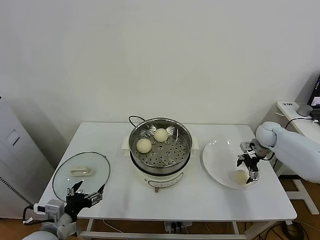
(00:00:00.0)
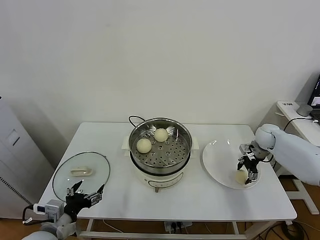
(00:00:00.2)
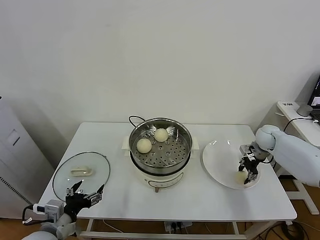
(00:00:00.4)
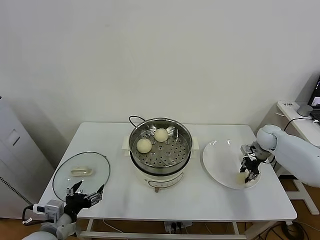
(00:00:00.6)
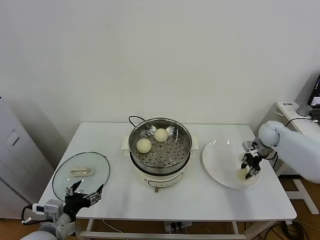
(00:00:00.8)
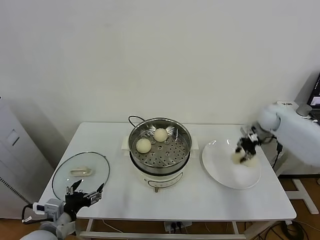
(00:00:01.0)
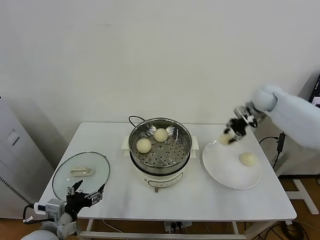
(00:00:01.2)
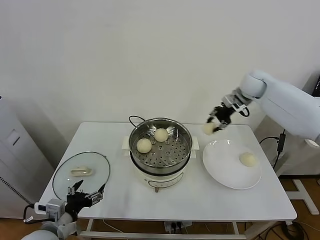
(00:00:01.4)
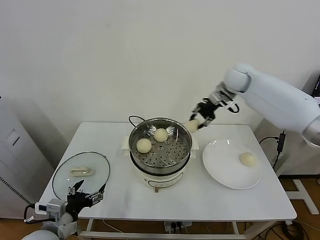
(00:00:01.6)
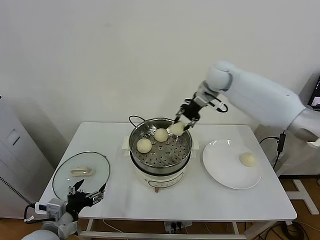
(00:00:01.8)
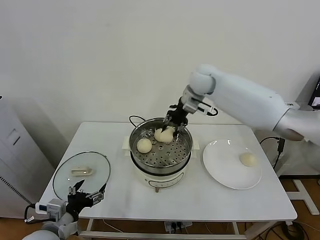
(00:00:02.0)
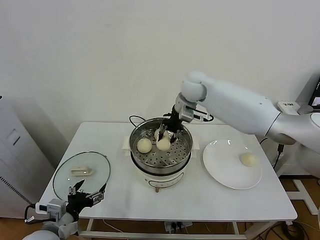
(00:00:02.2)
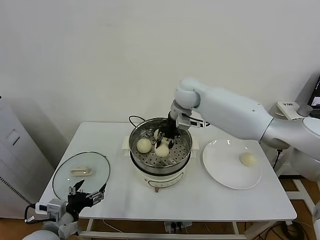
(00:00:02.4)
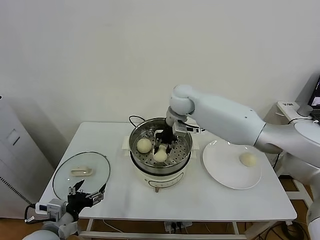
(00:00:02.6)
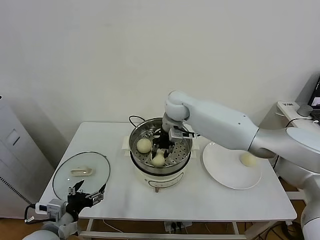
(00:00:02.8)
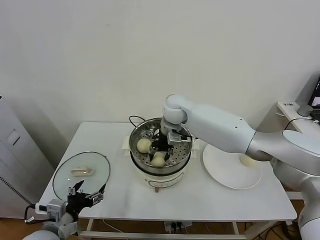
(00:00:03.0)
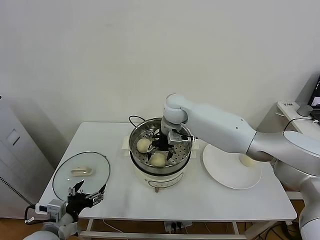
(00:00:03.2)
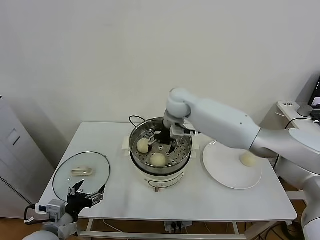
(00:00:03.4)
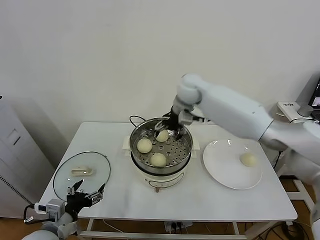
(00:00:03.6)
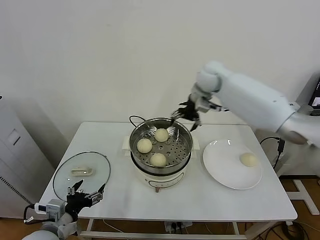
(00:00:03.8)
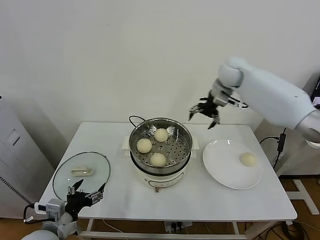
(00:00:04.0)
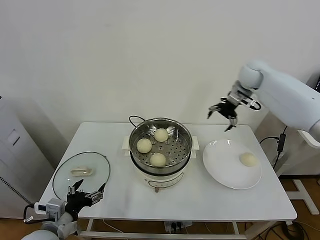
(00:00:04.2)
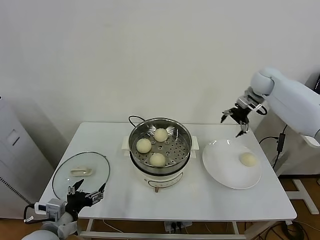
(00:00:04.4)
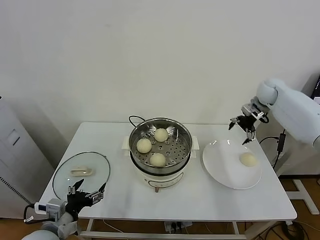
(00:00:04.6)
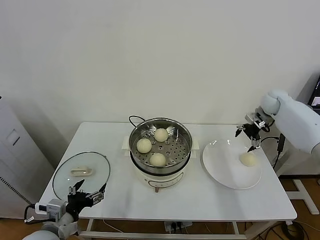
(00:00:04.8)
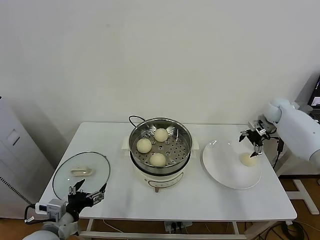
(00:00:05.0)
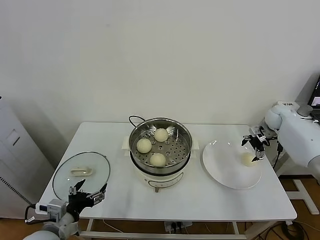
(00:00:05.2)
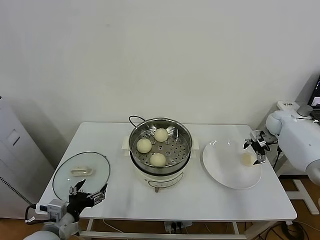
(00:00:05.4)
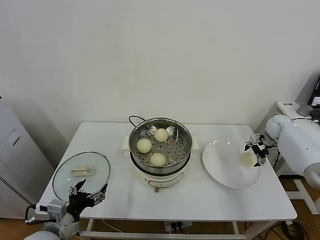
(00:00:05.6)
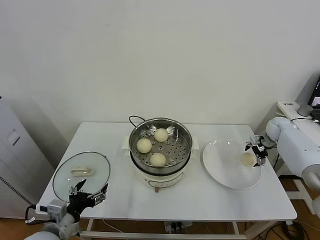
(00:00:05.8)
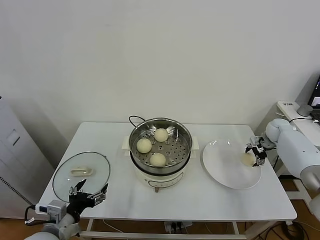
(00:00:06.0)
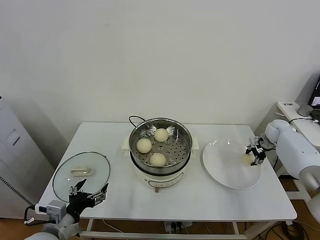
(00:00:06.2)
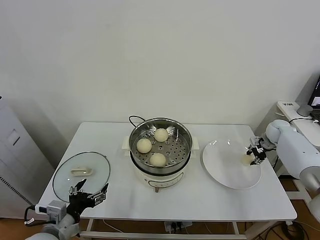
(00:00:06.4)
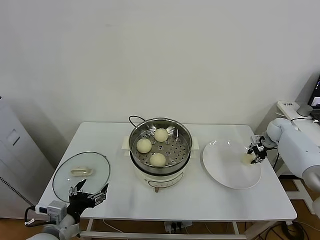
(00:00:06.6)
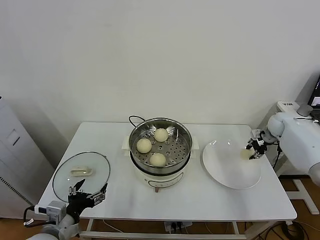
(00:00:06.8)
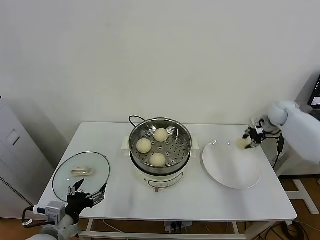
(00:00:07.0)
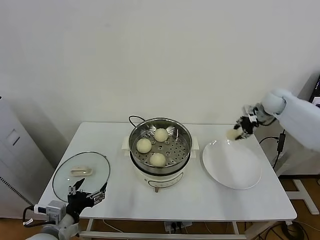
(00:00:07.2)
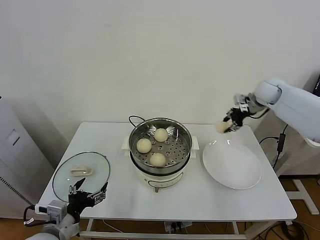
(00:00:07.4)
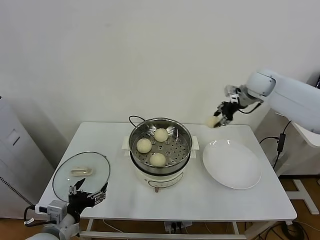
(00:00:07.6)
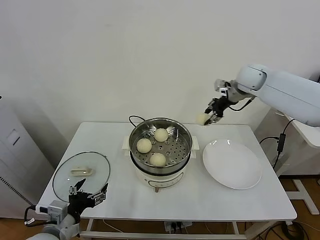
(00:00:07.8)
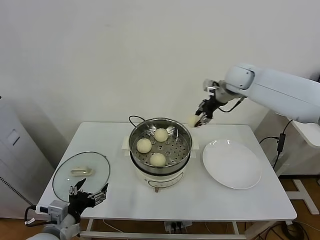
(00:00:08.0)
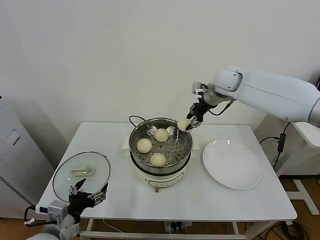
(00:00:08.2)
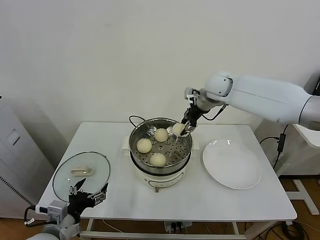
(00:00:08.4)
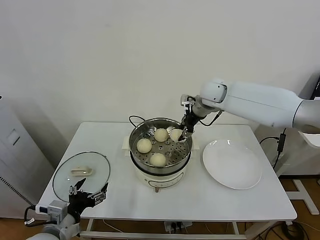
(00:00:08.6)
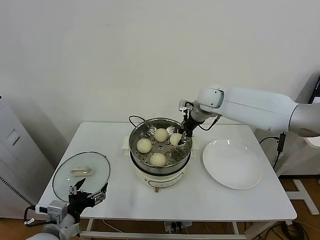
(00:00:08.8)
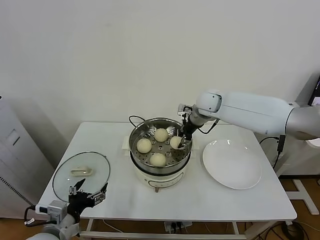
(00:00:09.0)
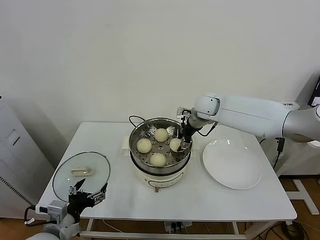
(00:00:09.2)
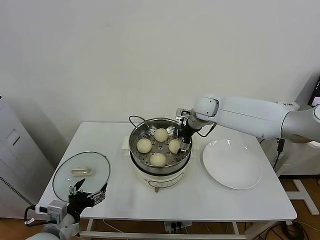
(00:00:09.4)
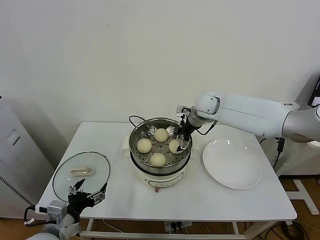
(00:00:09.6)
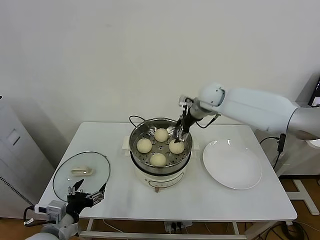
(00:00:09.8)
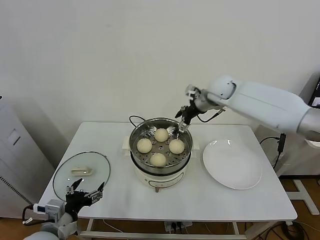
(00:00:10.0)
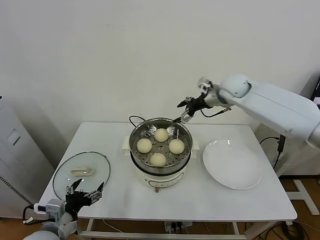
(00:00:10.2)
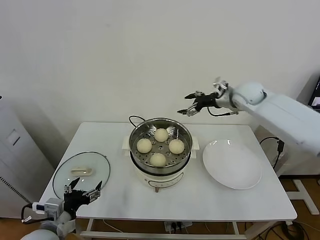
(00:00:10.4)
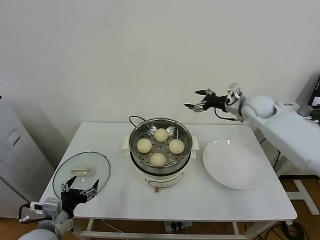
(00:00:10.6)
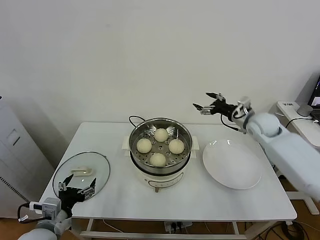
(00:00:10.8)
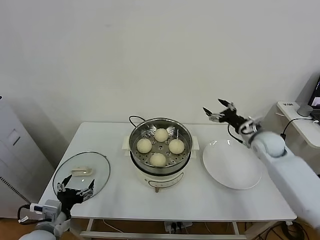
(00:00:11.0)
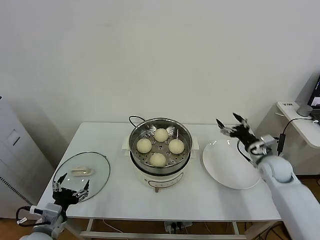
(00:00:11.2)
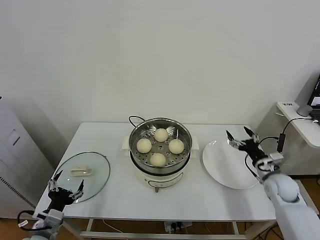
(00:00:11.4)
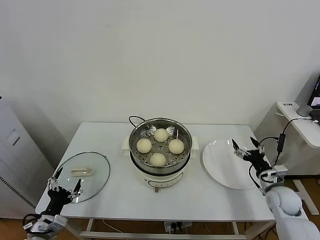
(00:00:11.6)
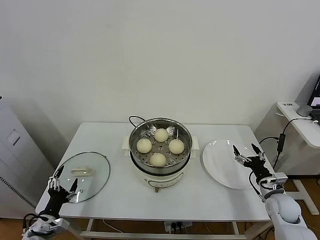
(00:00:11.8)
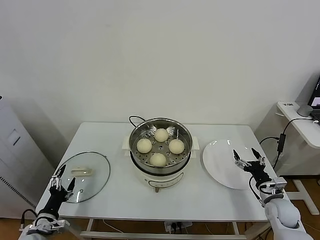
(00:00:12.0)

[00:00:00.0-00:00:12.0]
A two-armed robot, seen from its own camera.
Task of the whole recording: take steamed baozi put them in steamer.
Step, 00:00:00.8 to 00:00:03.4: Place the baozi on the steamer with right gripper.
Step, 00:00:03.6 to 00:00:06.4: Grasp the baozi in the plate with right gripper.
Step, 00:00:06.6 to 00:00:09.8: Place the baozi on the steamer with right gripper.
00:00:00.0 to 00:00:01.6: The right gripper travels upward and to the left by some 30 cm, and closes.
00:00:01.6 to 00:00:03.0: The right gripper is displaced to the left and downward by roughly 20 cm.
00:00:03.0 to 00:00:04.4: The right gripper is displaced to the right by some 35 cm, and opens.
00:00:04.4 to 00:00:06.0: The right gripper goes some 25 cm downward and to the right.
00:00:06.0 to 00:00:07.6: The right gripper travels upward and to the left by some 30 cm, and closes its fingers.
00:00:07.6 to 00:00:09.0: The right gripper goes about 20 cm to the left and downward.
00:00:09.0 to 00:00:10.4: The right gripper goes roughly 15 cm to the right, and opens its fingers.
00:00:10.4 to 00:00:12.0: The right gripper is displaced downward, backward and to the right by some 40 cm. The left gripper heads downward and to the left, covering roughly 15 cm.

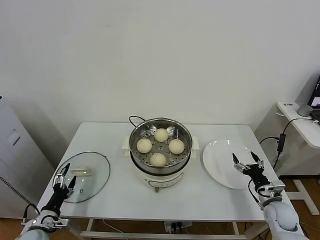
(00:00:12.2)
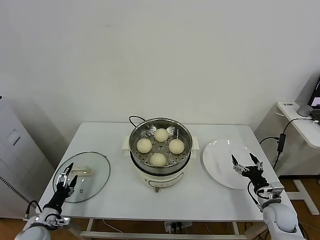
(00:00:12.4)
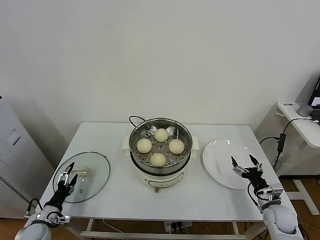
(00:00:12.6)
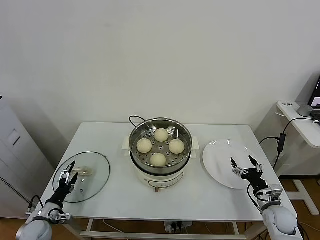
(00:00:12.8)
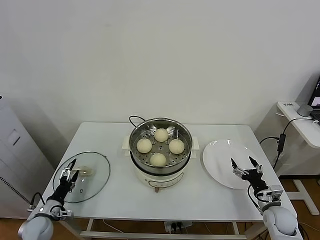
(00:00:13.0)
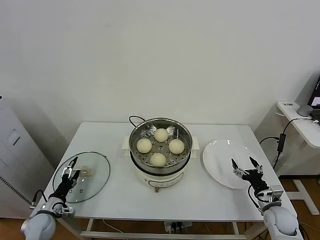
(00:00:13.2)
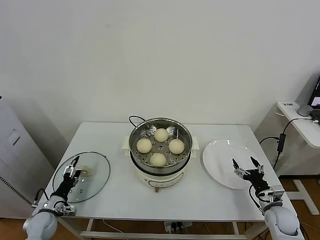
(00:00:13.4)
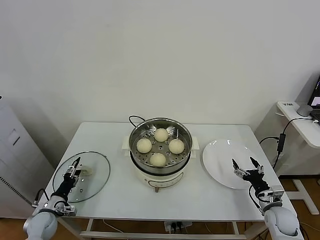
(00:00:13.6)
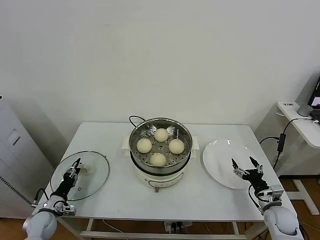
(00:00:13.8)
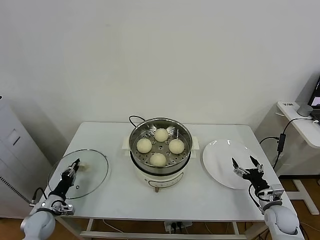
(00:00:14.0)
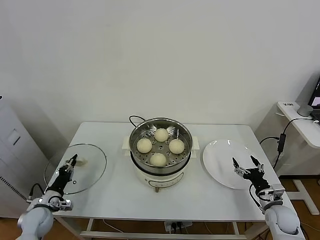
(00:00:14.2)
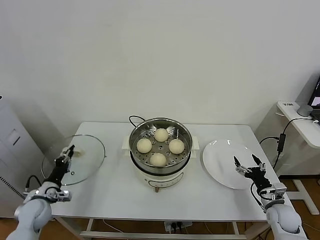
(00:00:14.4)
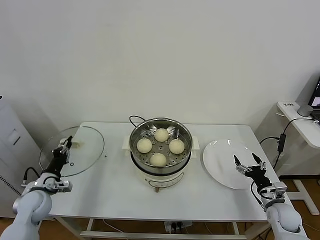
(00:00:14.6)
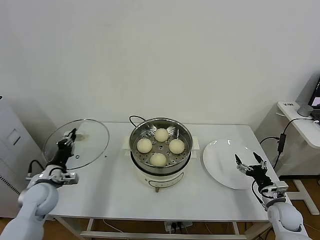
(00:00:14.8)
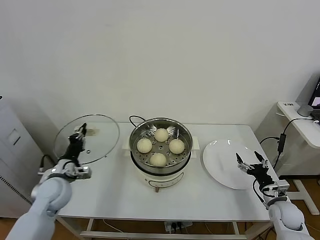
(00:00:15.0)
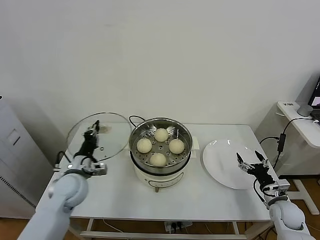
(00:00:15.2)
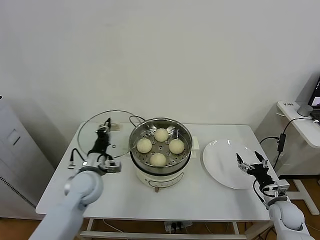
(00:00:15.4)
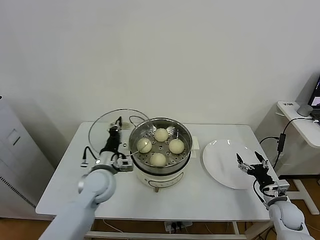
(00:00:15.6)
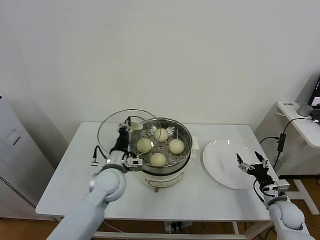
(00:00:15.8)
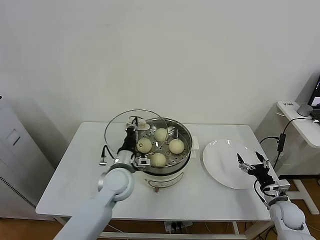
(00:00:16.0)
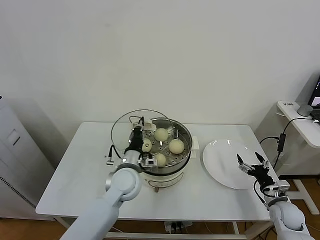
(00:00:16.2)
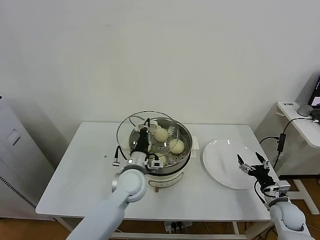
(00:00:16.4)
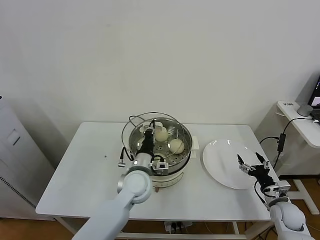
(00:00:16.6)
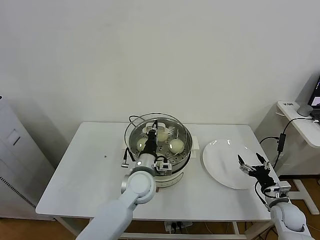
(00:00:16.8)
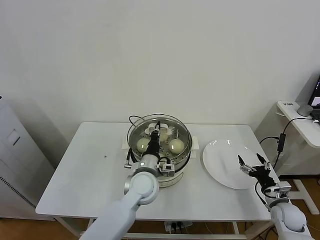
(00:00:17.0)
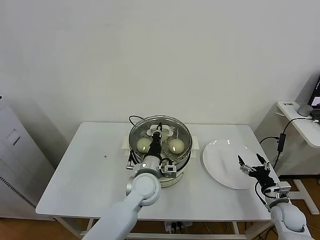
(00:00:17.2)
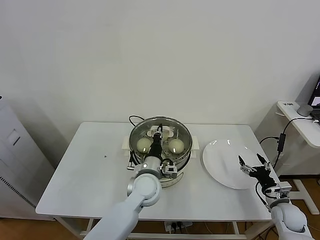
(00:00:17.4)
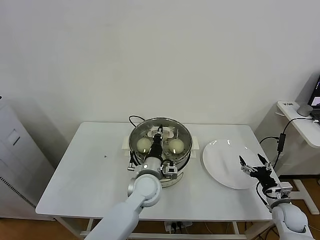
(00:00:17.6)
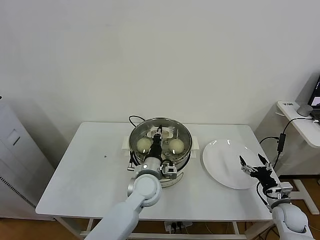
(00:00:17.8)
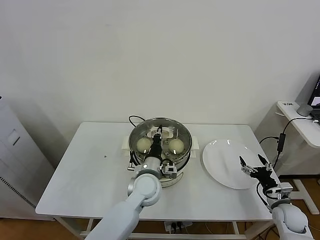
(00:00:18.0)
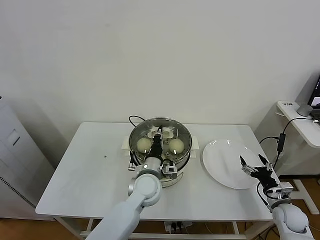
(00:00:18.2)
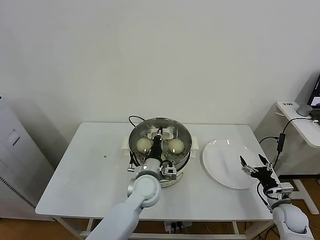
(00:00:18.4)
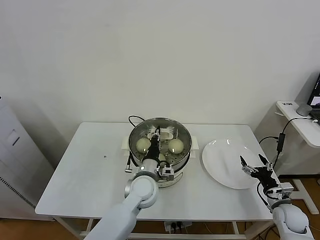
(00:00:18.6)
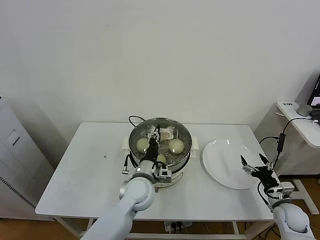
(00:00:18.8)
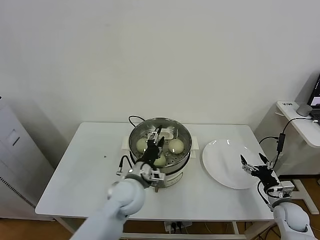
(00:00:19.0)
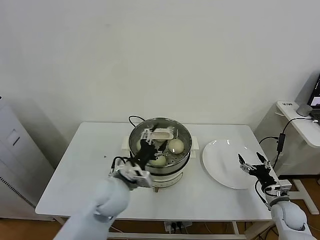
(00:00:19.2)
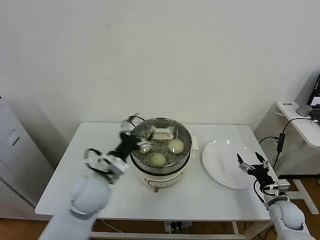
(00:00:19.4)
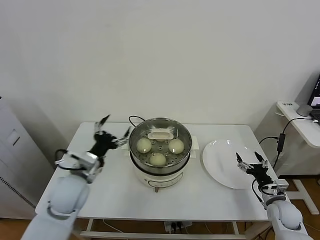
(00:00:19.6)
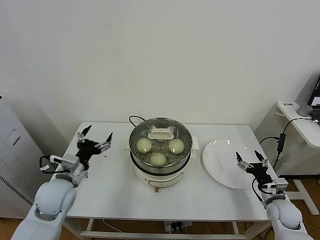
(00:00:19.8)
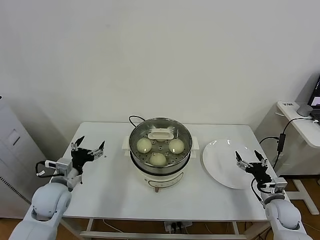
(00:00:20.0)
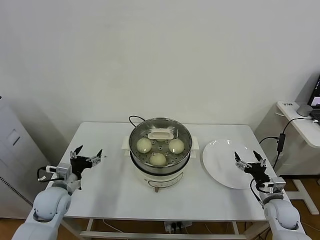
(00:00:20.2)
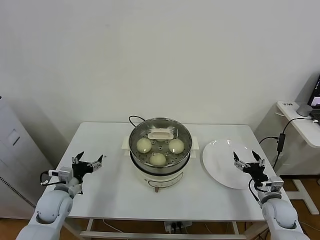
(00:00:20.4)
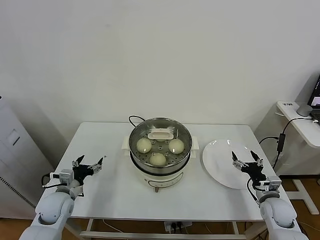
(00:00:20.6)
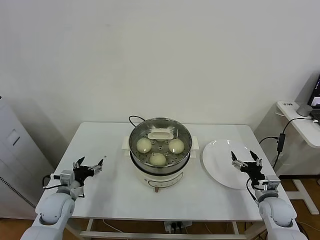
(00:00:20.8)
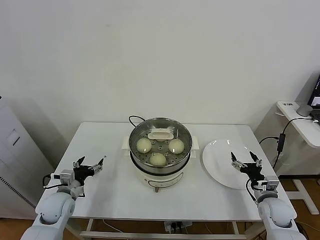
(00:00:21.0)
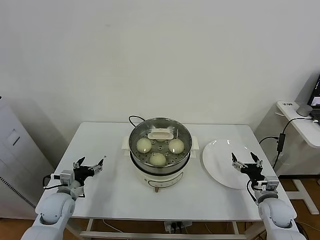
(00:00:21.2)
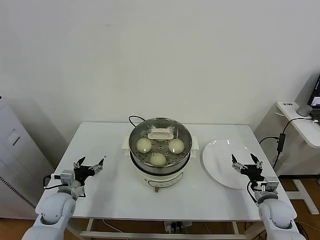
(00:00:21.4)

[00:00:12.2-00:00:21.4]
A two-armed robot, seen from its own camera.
Task of the whole recording: take steamed baozi put them in steamer.
Step, 00:00:12.2 to 00:00:14.2: Grasp the pot lid with left gripper.
Step, 00:00:14.4 to 00:00:19.2: Place the pot lid on the steamer with left gripper.
00:00:12.2 to 00:00:13.8: The left gripper heads forward, covering about 10 cm, and closes.
00:00:13.8 to 00:00:15.2: The left gripper shifts some 25 cm upward and to the right, and closes.
00:00:15.2 to 00:00:16.8: The left gripper moves to the right, about 20 cm.
00:00:16.8 to 00:00:18.4: The grippers stay close to where they were, moving slightly.
00:00:18.4 to 00:00:19.8: The left gripper travels to the left by about 25 cm, and opens up.
00:00:19.8 to 00:00:21.4: The left gripper is displaced downward and to the left by some 15 cm.
